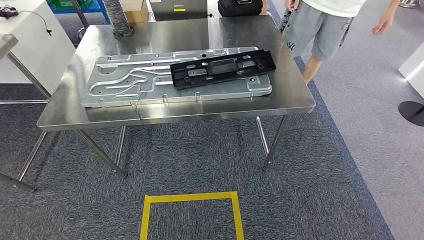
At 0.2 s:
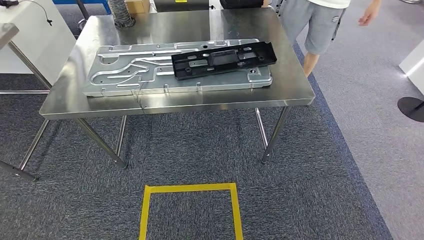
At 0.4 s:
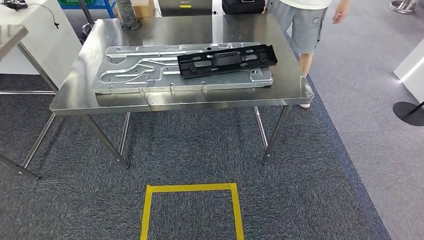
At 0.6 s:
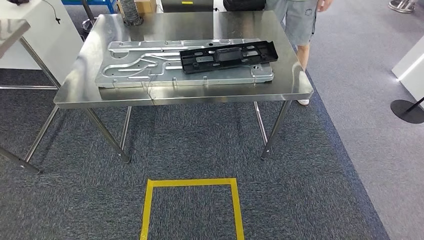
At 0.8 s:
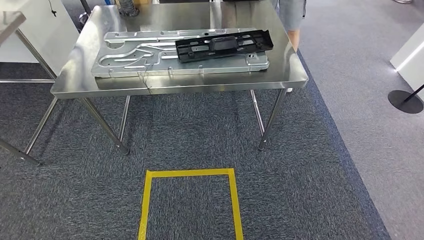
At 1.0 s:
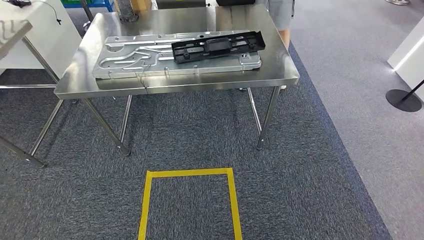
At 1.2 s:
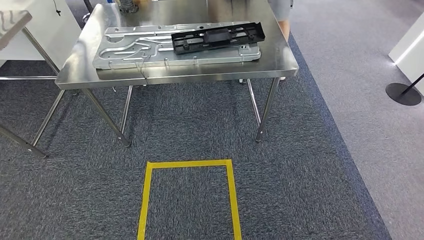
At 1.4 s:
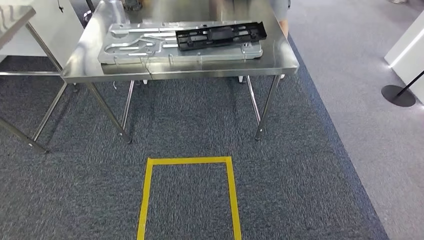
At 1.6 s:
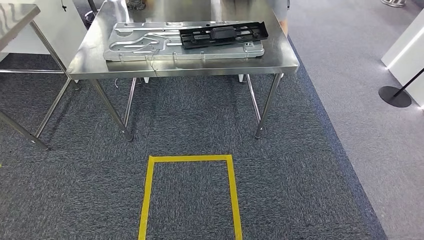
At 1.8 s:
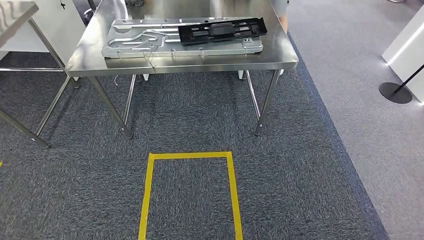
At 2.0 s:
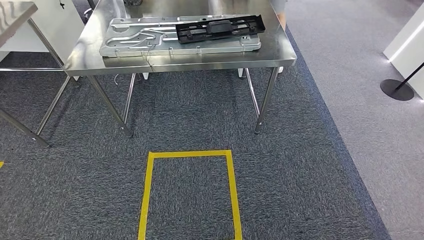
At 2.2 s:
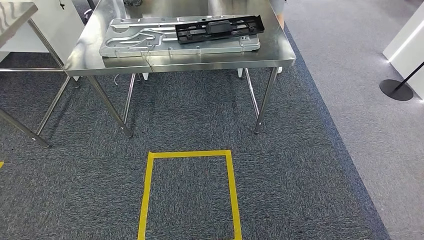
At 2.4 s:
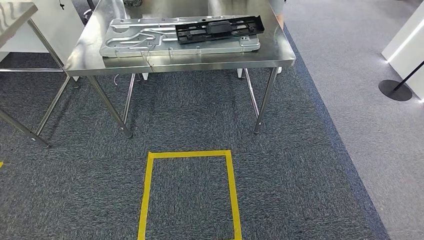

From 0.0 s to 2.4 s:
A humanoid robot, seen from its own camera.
Step, from 0.0 s to 2.4 s: Move to the initial position of the shelf.
From 1.2 s to 2.4 s: The hands move only a little.
